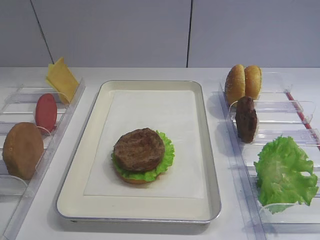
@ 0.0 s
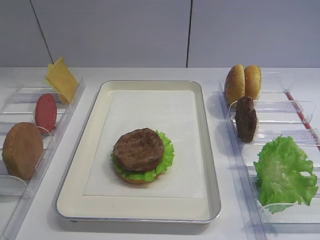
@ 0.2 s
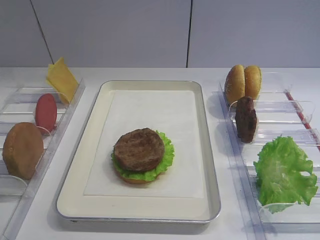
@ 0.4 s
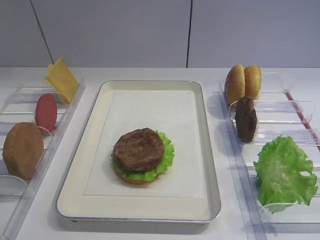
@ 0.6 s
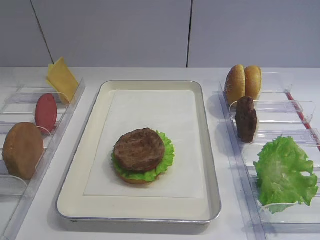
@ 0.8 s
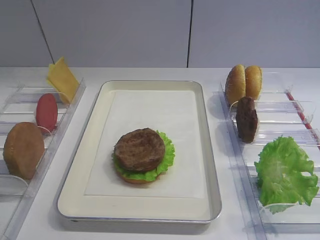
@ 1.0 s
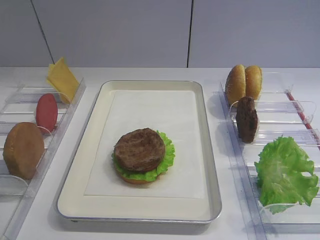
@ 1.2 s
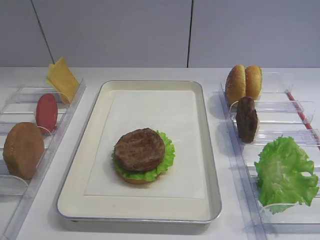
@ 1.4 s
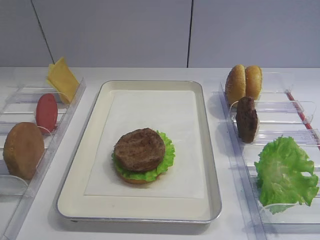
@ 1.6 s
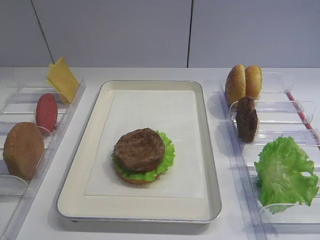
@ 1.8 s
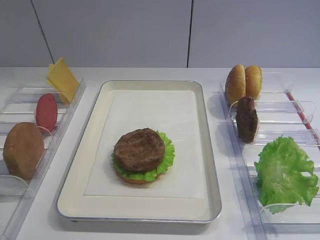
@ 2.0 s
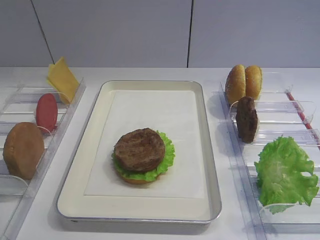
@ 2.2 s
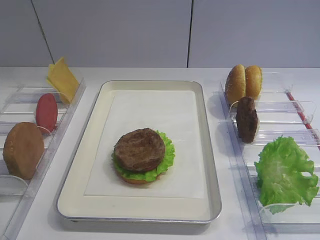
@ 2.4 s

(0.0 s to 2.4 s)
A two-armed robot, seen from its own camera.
1.2 s - 2.4 s: Both grippers stay put.

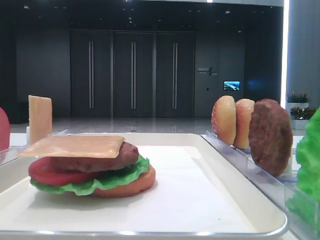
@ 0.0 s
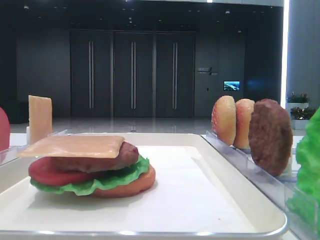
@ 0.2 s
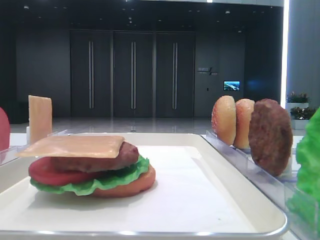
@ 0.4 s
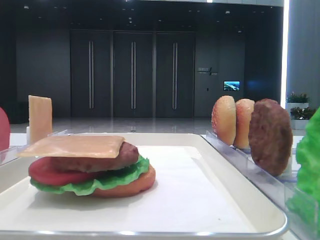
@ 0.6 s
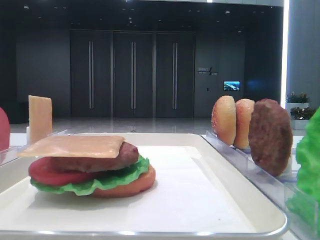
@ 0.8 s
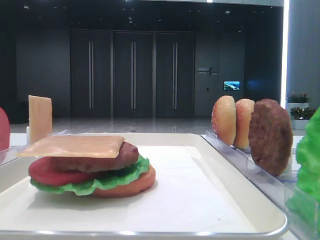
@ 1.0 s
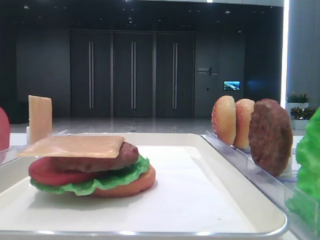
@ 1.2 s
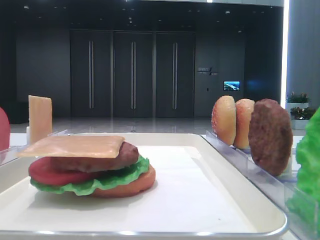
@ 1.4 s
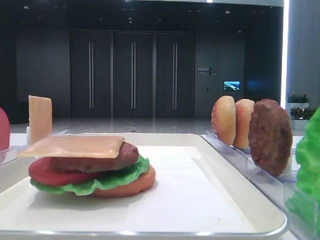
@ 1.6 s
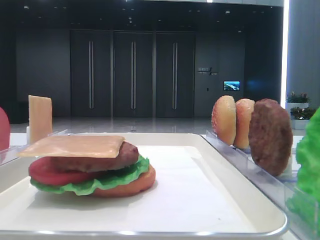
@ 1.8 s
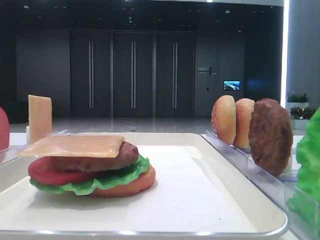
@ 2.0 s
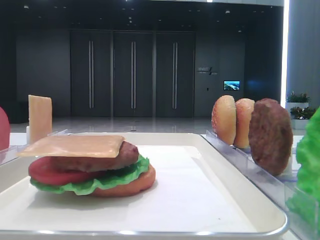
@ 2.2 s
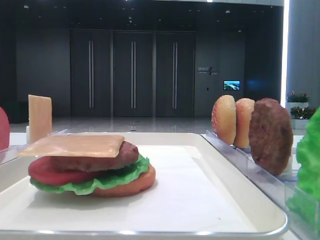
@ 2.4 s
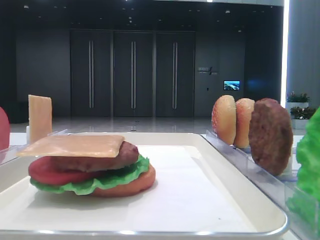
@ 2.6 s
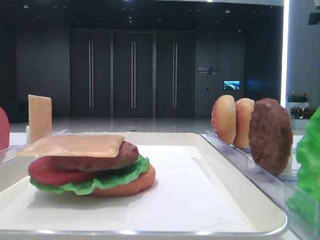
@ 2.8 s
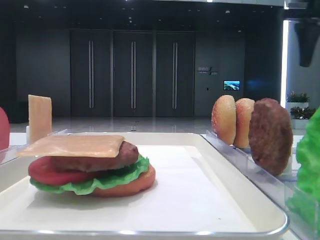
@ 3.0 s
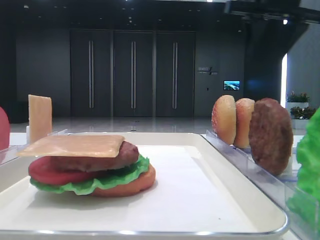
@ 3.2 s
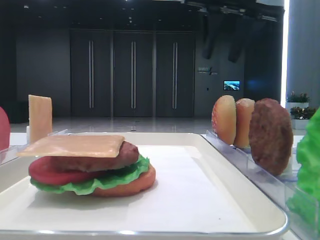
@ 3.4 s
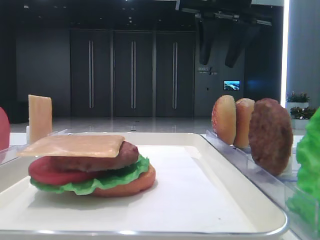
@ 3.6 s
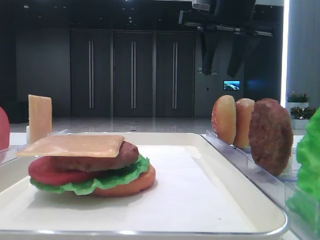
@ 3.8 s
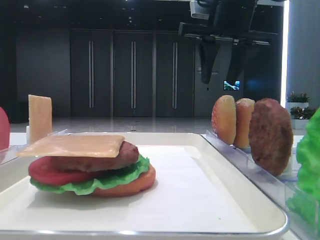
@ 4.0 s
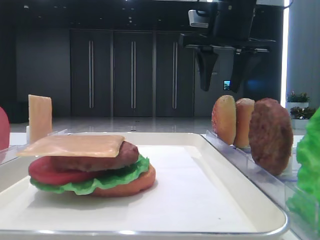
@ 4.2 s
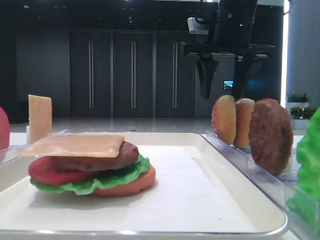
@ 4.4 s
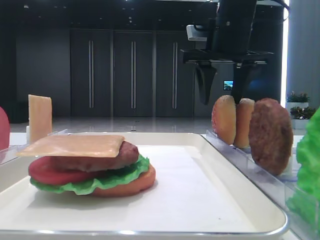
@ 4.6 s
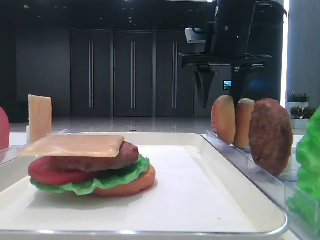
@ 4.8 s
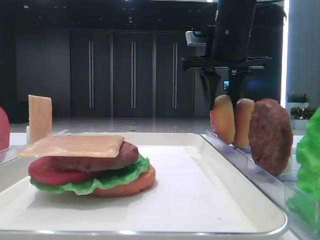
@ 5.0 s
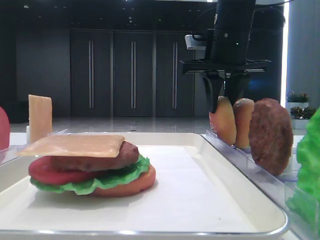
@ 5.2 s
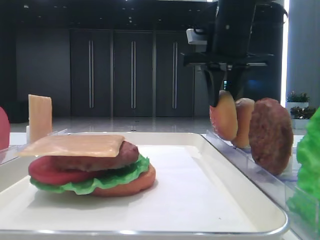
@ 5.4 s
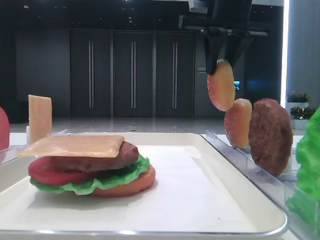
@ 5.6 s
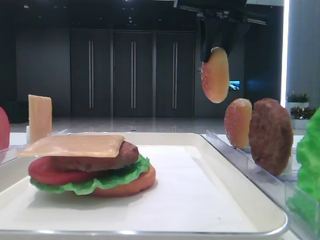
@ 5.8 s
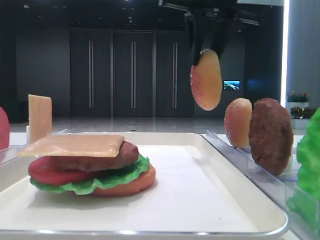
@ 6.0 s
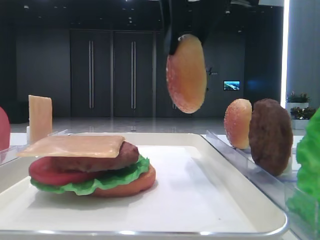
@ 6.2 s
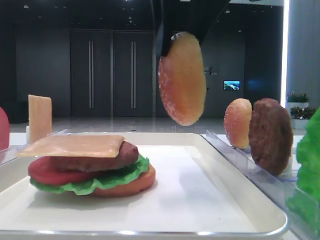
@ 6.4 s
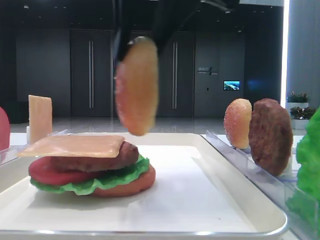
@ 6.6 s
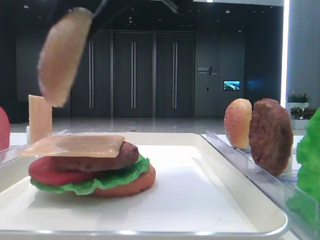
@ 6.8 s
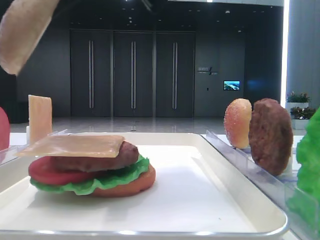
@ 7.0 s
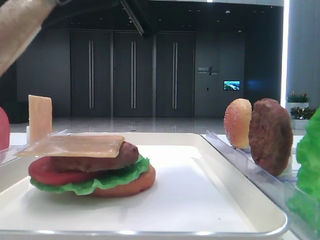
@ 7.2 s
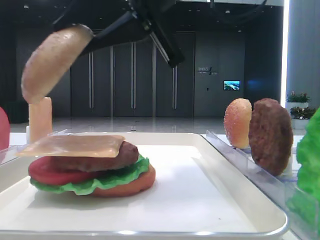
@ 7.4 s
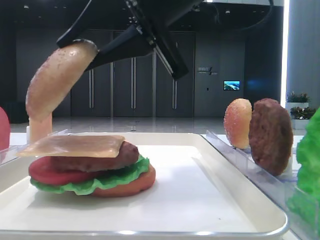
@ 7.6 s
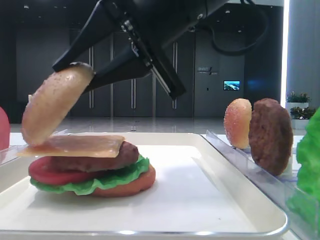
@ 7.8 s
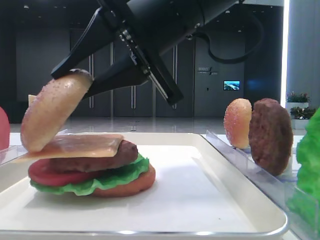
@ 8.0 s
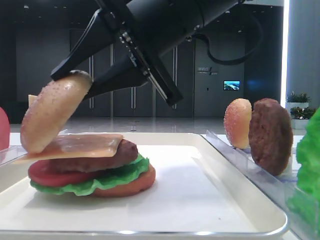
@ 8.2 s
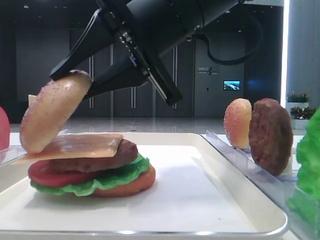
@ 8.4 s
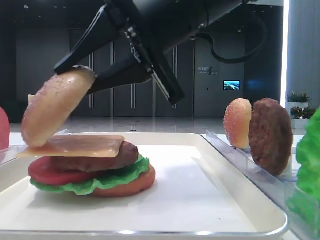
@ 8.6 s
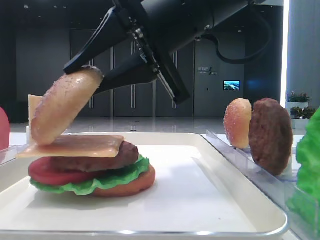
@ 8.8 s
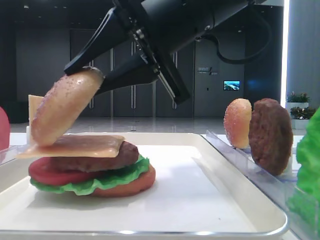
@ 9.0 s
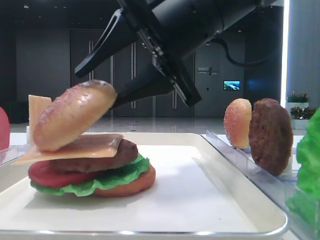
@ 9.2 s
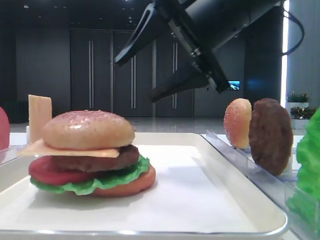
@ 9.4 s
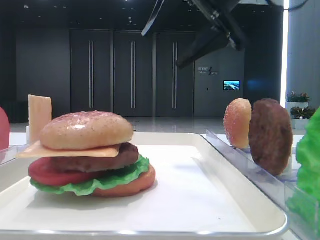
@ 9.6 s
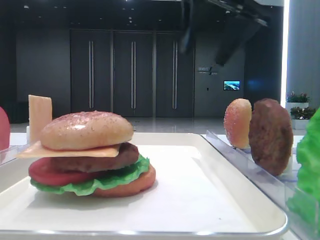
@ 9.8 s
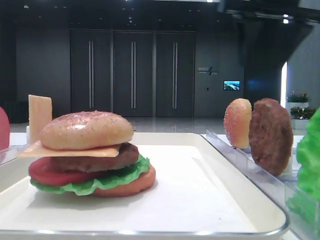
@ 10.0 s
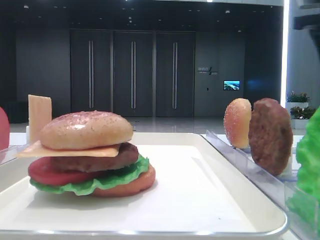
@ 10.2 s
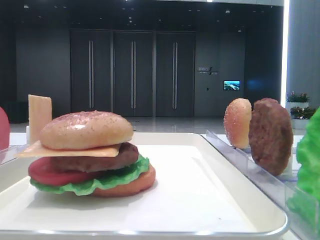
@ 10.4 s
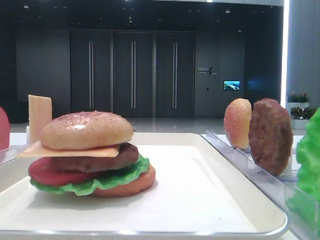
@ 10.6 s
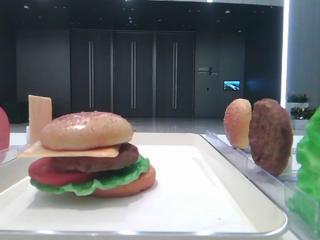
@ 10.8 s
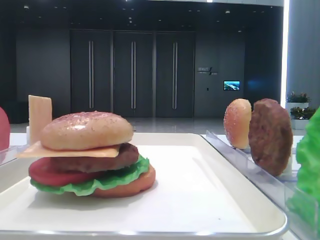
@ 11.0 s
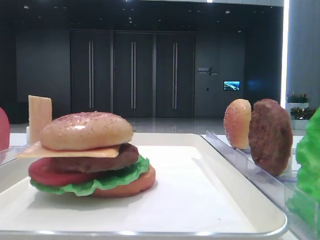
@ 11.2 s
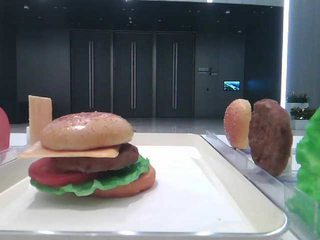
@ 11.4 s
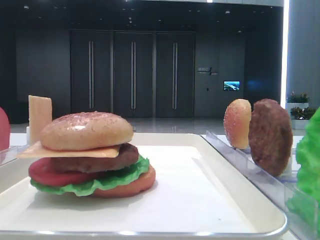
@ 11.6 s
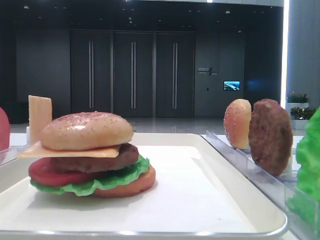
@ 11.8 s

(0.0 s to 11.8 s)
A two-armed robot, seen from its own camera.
Step, 0.0 s - 5.0 s: Pick up the top bread slice with the right hand.
Step, 5.2 s - 9.2 s: Place the top bread slice on the cheese with the right hand.
1.4 s - 3.0 s: The right gripper is displaced forward by about 40 cm.
3.0 s - 4.4 s: The right gripper heads to the left and downward, covering approximately 15 cm, and opens.
4.4 s - 6.0 s: The right gripper is displaced backward and upward by about 10 cm, and closes its fingers.
6.0 s - 7.4 s: The right gripper heads backward, downward and to the left, covering some 15 cm.
7.4 s - 8.8 s: The left gripper closes its fingers.
8.8 s - 10.4 s: The right gripper travels to the right by some 30 cm, and opens its fingers.
10.4 s - 11.8 s: The right gripper travels backward by about 35 cm.
